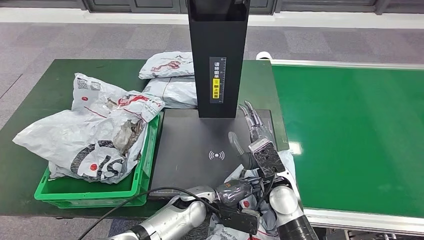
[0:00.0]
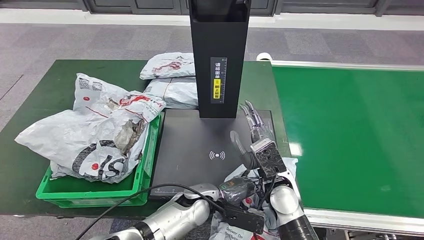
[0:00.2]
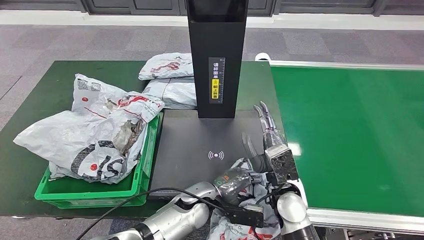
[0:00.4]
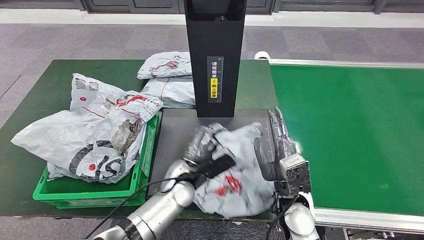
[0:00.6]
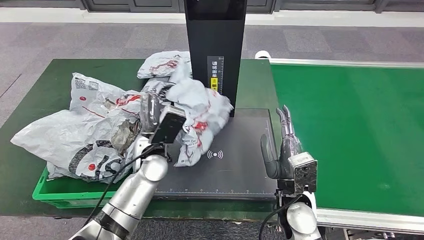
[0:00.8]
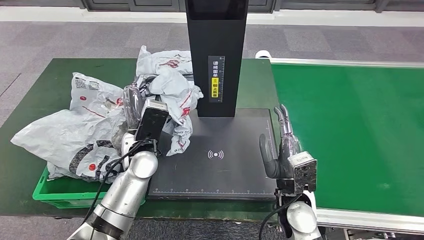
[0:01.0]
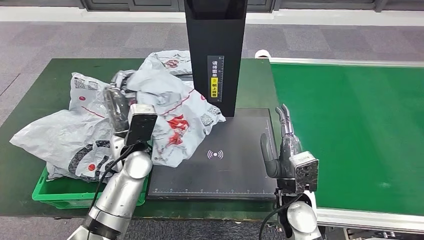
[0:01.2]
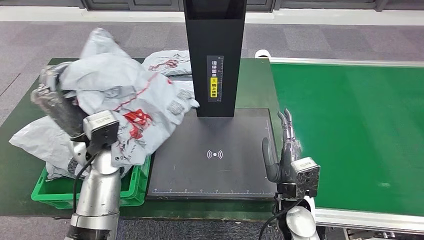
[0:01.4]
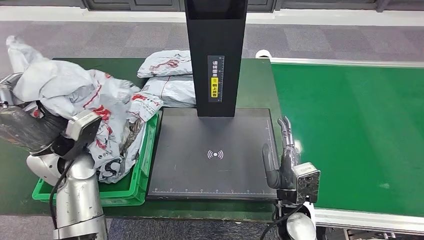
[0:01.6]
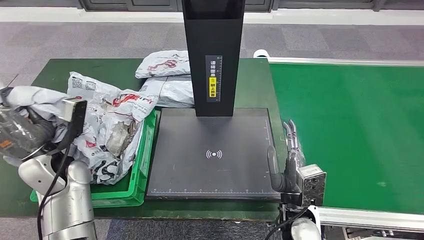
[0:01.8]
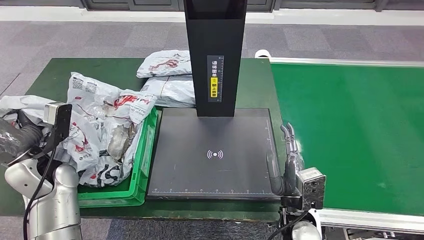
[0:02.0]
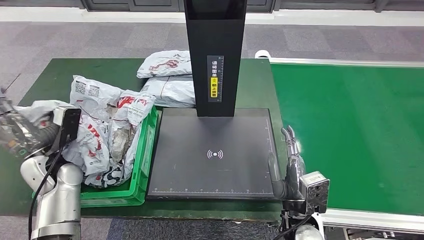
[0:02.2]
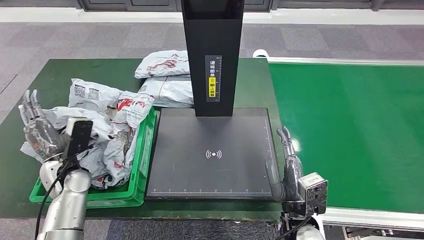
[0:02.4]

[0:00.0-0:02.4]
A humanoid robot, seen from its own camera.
Step, 0:00.0 to 0:01.0: Pick up the parcel from the inbound machine.
Step, 0:01.2 to 0:02.4: Place the parcel into the delivery box.
